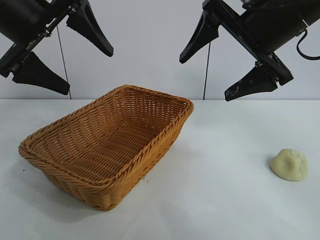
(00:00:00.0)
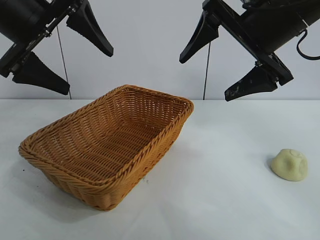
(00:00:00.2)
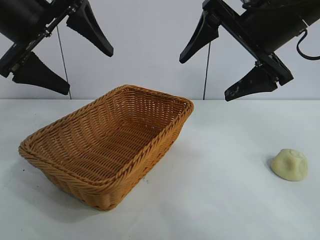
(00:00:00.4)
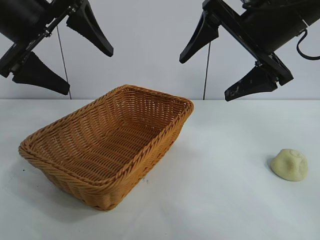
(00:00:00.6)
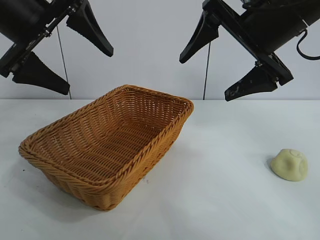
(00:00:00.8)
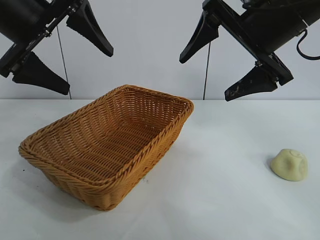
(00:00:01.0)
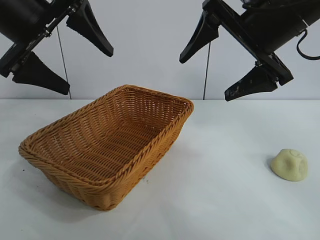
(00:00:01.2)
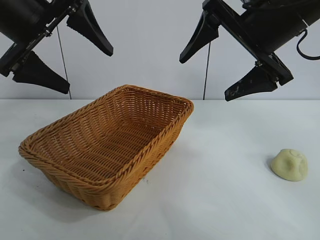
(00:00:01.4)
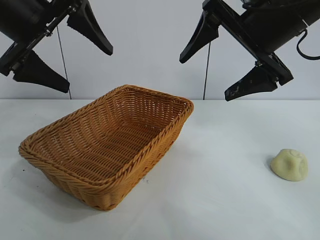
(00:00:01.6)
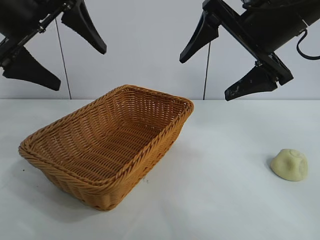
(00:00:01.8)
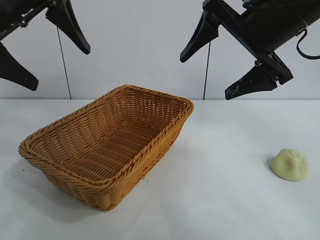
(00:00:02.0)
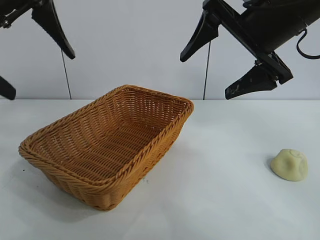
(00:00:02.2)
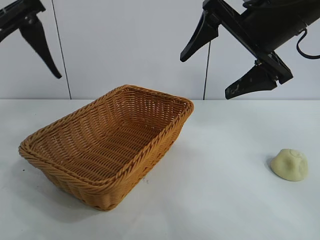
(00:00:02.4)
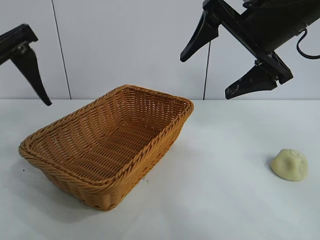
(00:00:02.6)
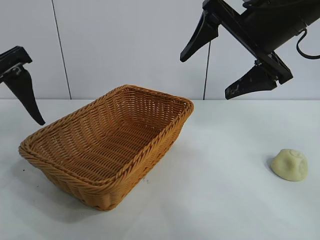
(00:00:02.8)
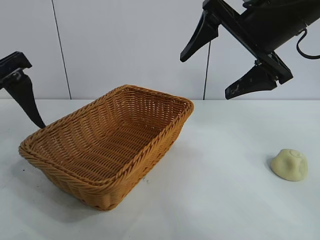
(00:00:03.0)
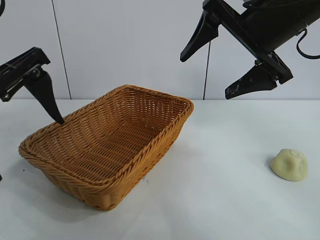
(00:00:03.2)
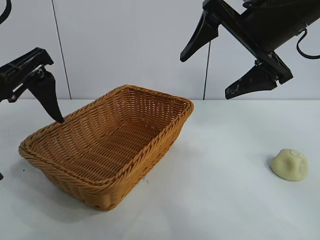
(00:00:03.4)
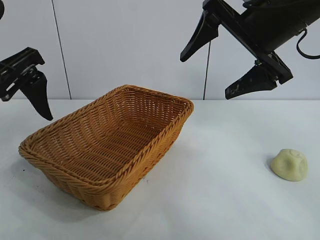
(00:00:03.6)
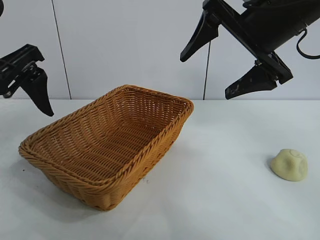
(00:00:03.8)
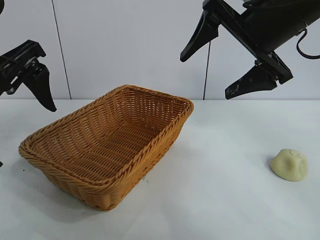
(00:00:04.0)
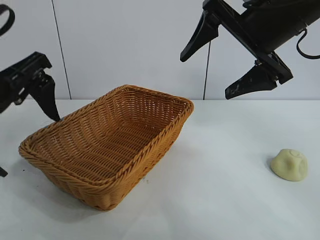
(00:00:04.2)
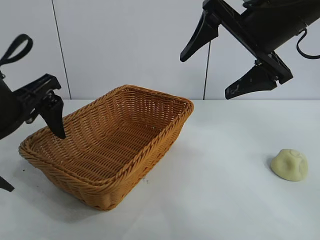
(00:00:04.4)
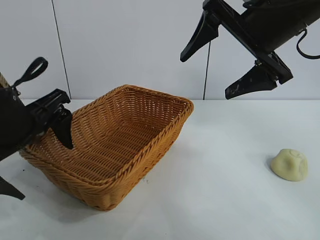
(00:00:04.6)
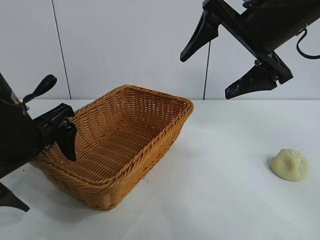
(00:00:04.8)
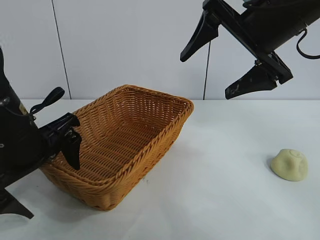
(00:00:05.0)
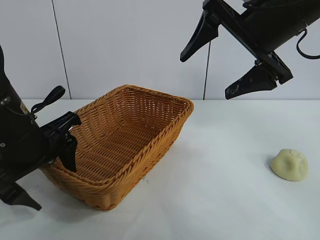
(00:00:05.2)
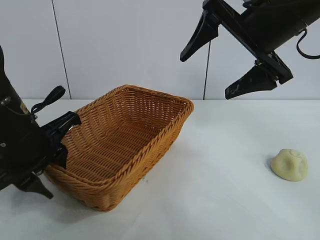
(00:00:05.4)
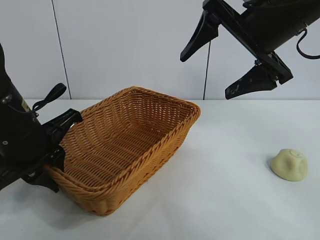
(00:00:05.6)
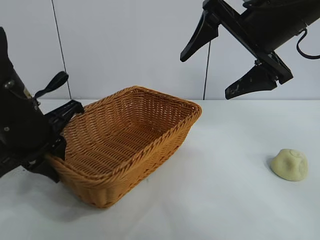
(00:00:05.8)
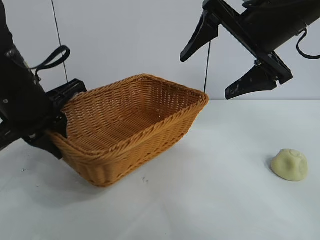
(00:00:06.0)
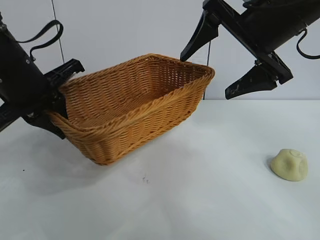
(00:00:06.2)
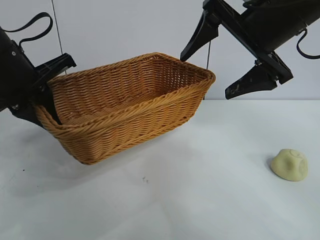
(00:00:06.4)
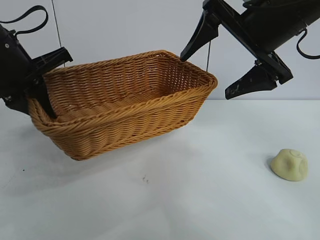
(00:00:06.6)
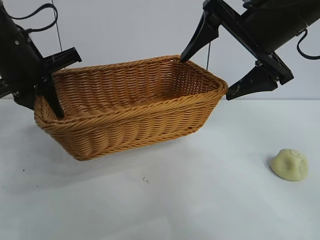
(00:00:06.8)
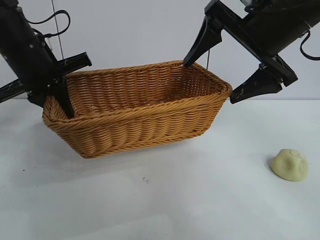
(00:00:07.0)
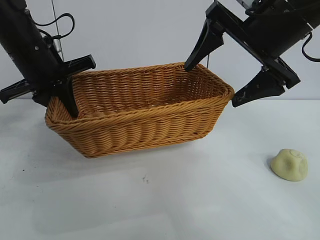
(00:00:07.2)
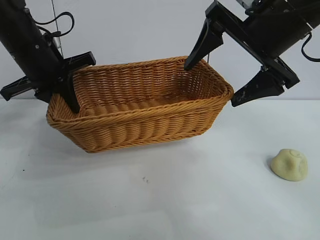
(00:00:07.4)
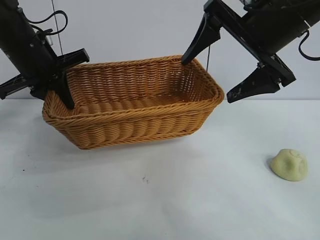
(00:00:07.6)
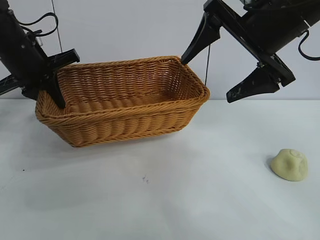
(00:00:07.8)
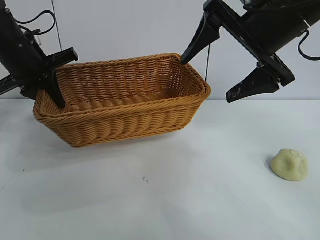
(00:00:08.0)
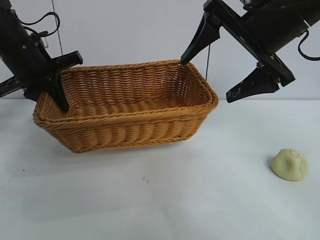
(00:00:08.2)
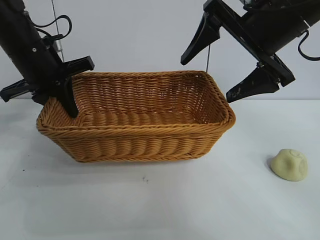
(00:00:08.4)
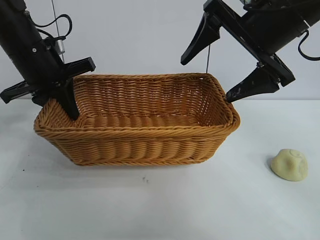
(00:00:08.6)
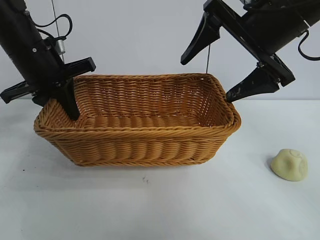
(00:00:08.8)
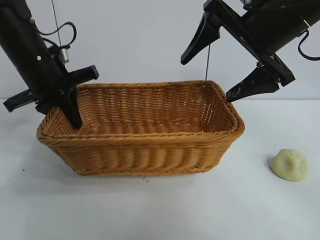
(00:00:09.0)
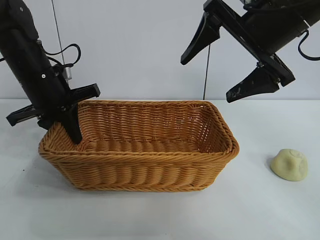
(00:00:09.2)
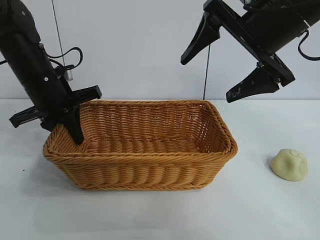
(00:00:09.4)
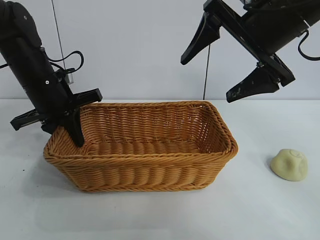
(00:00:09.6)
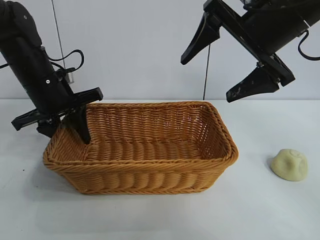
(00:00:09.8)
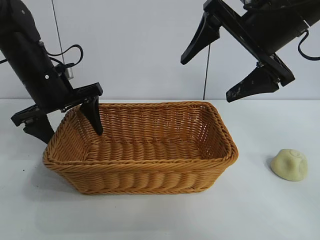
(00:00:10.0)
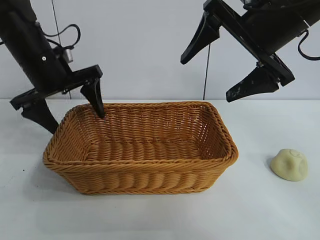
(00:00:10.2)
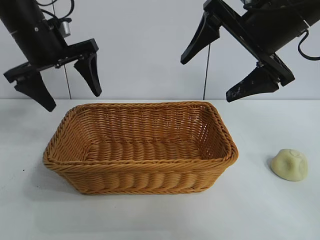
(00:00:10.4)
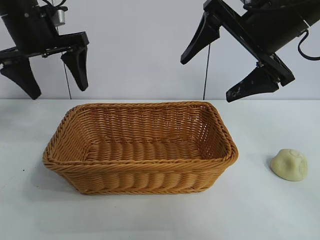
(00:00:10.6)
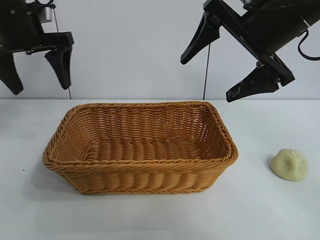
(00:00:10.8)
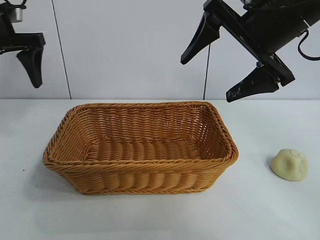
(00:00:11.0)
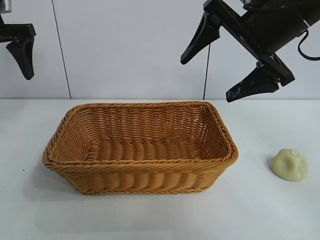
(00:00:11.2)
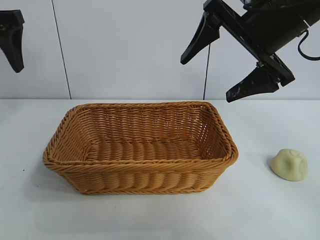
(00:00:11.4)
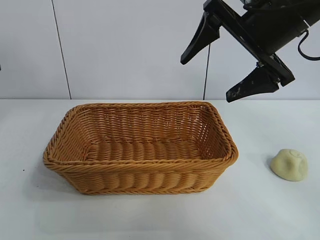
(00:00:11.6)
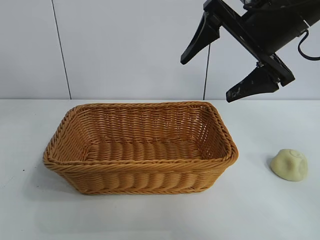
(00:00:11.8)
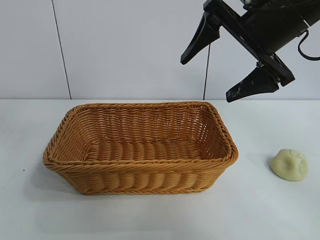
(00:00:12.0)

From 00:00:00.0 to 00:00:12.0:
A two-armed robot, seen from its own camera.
Task of the whole recording: pick up the egg yolk pastry and put it into the basket.
Step, from 00:00:01.4 to 00:00:05.4: Grasp the basket with left gripper.
Step, from 00:00:05.6 to 00:00:09.8: Place the basket in the center of view with left gripper.

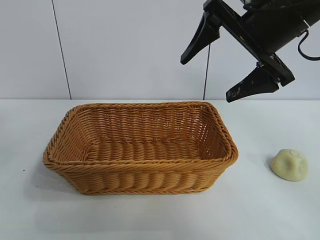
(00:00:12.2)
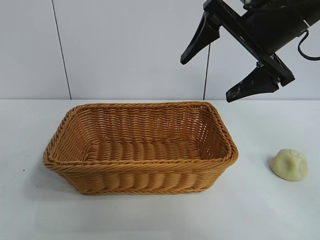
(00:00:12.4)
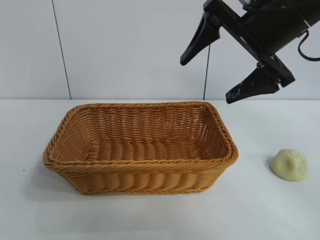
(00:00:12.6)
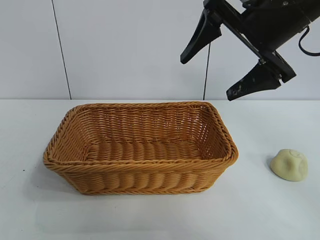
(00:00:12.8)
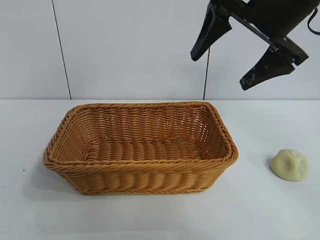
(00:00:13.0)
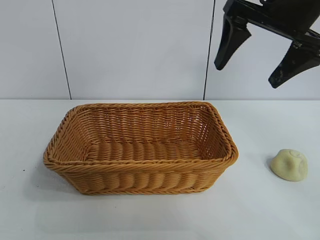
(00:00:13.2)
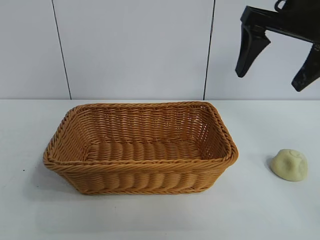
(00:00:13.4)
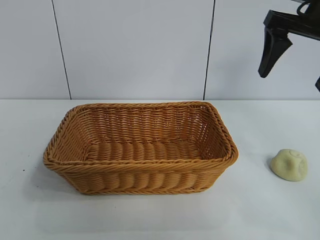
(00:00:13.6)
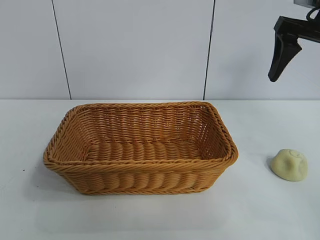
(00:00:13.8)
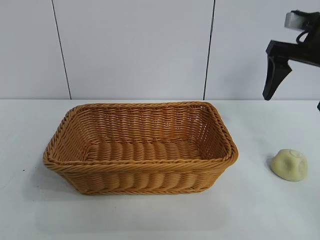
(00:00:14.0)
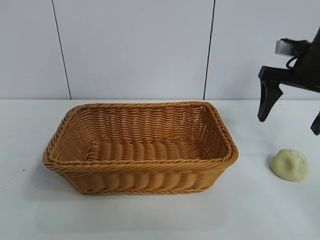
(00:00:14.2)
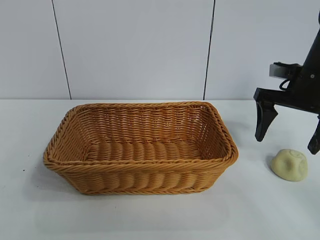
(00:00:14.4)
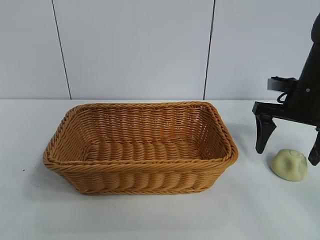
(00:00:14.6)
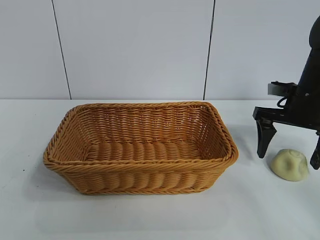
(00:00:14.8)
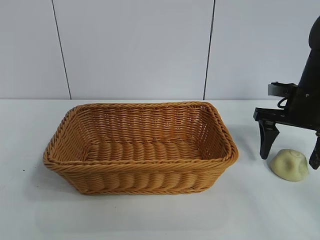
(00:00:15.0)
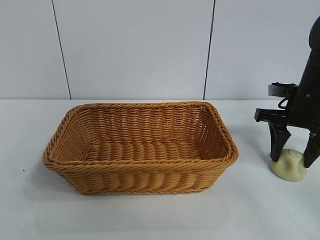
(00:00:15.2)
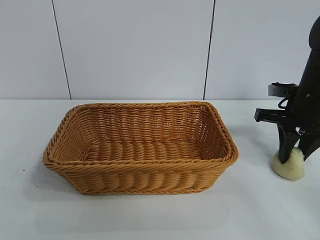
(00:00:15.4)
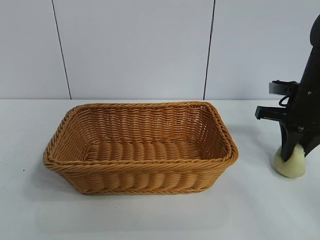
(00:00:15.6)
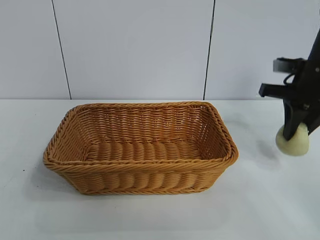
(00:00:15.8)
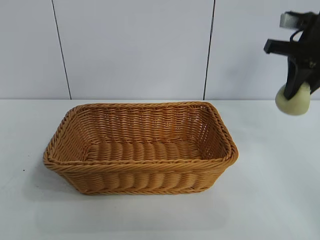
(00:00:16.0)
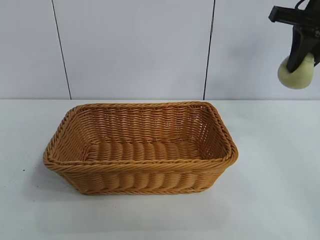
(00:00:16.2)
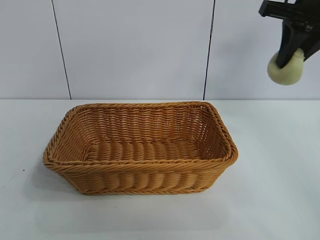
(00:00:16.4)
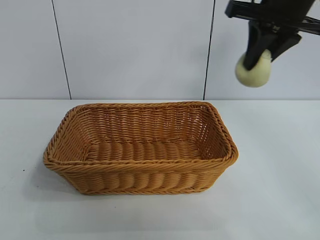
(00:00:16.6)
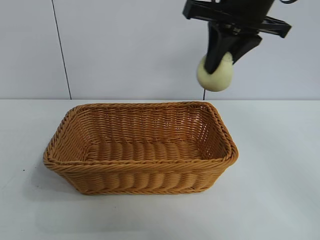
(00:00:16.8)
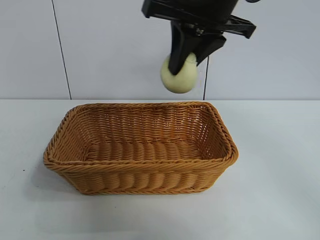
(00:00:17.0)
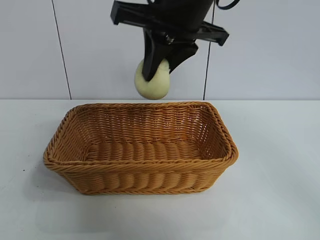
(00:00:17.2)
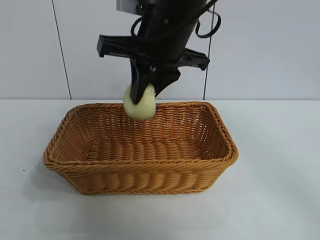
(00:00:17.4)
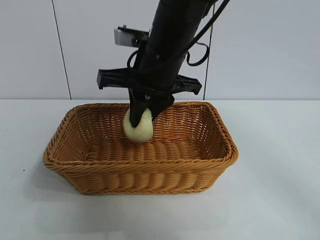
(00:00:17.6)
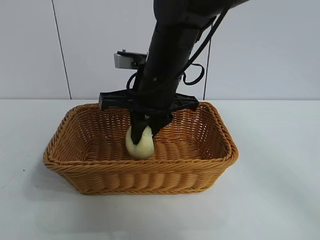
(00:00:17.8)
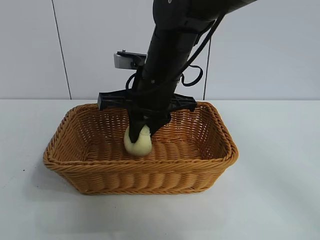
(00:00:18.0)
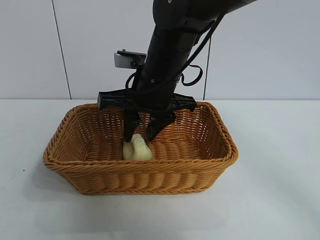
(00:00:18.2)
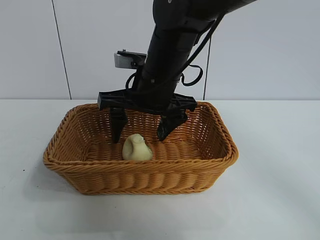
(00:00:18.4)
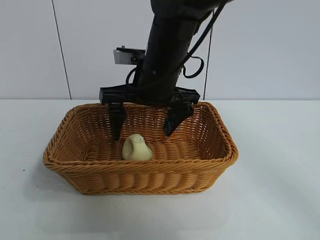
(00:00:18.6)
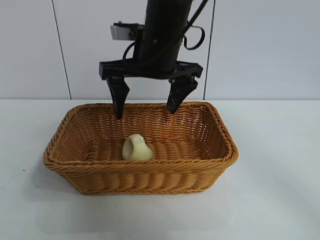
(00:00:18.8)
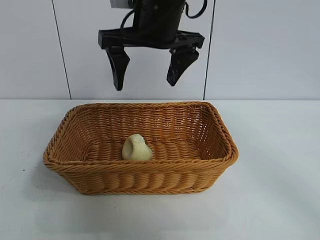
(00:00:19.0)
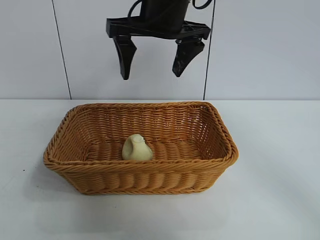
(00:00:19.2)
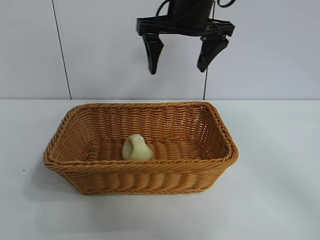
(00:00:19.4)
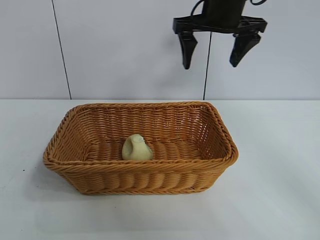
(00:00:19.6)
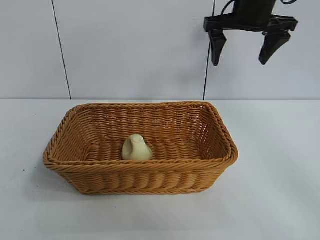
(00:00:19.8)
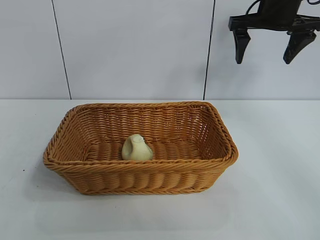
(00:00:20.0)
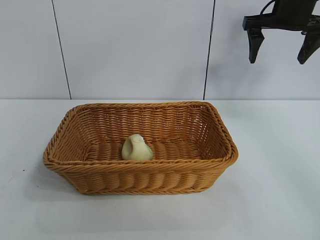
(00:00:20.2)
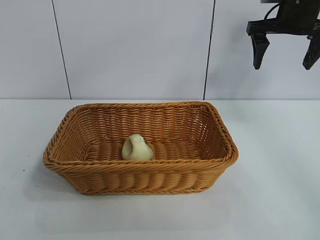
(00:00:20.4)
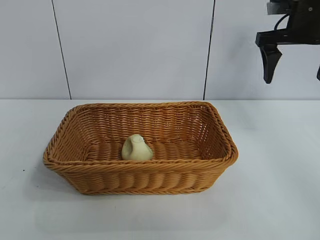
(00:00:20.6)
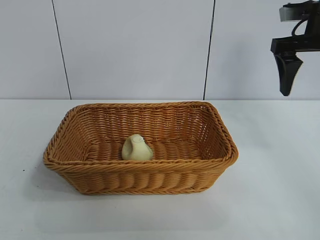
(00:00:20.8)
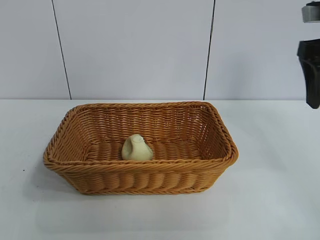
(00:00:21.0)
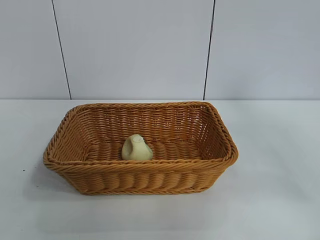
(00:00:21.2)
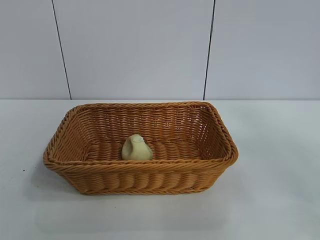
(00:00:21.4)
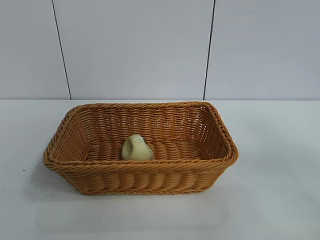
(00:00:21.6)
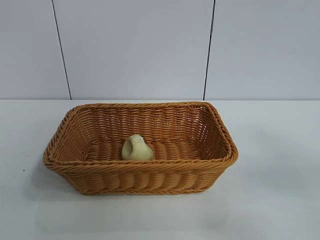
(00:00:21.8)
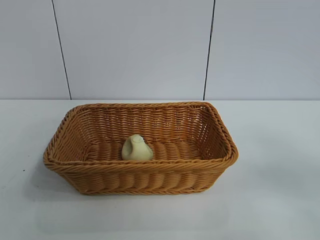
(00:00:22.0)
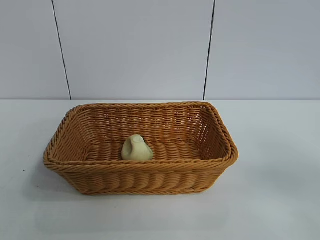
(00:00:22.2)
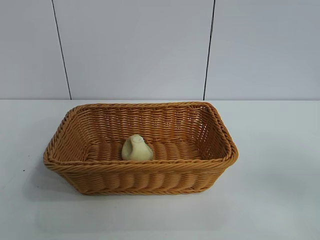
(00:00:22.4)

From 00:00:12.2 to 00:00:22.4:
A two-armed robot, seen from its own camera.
Task of the whole recording: pick up the egg yolk pastry and put it into the basket.
Step, from 00:00:12.2 to 00:00:15.4: Grasp egg yolk pastry with right gripper.
Step, from 00:00:15.6 to 00:00:18.2: Place the egg yolk pastry in the basket with right gripper.
